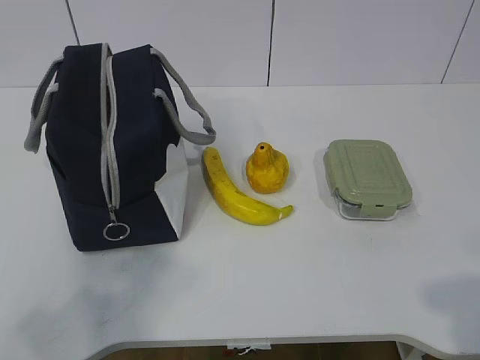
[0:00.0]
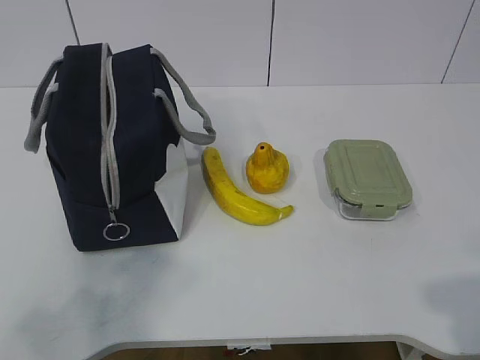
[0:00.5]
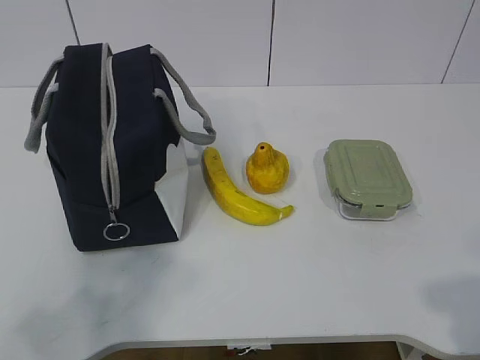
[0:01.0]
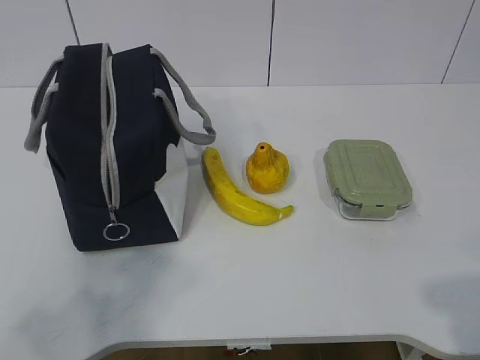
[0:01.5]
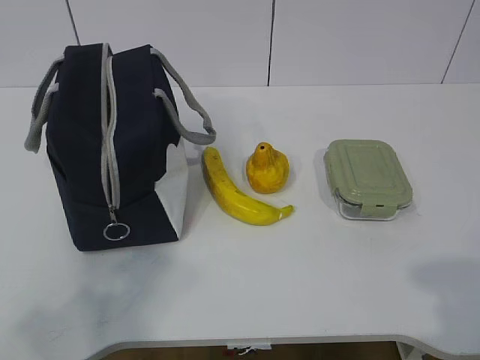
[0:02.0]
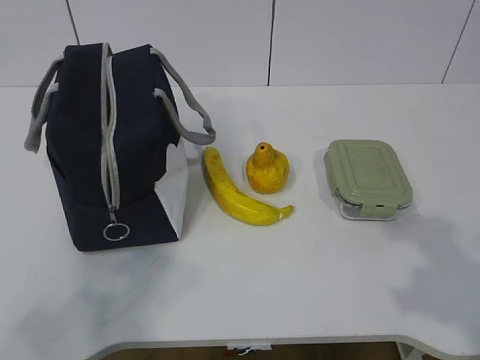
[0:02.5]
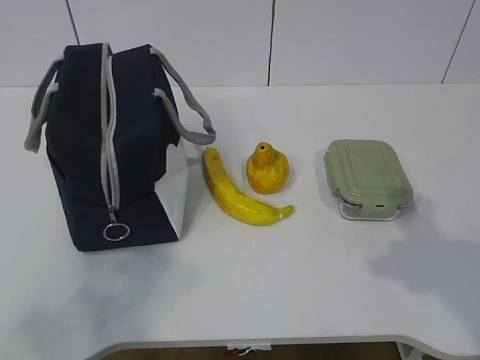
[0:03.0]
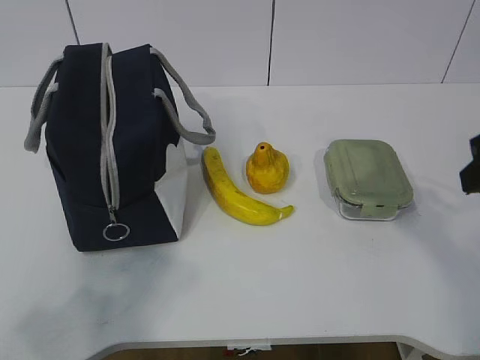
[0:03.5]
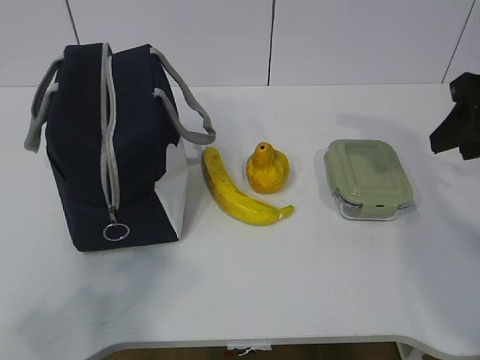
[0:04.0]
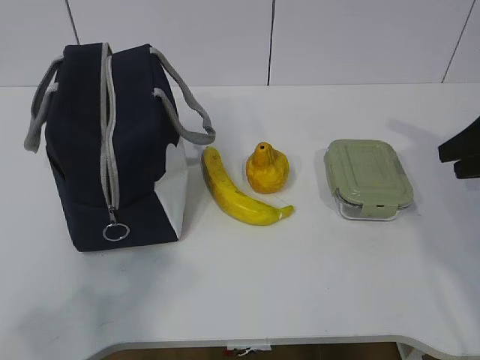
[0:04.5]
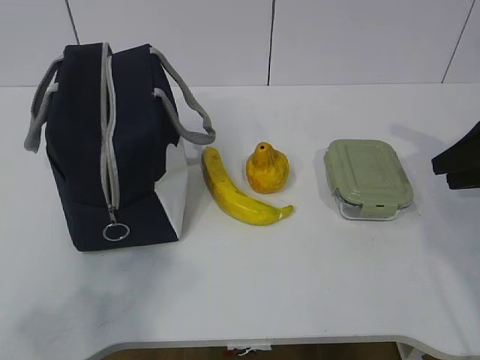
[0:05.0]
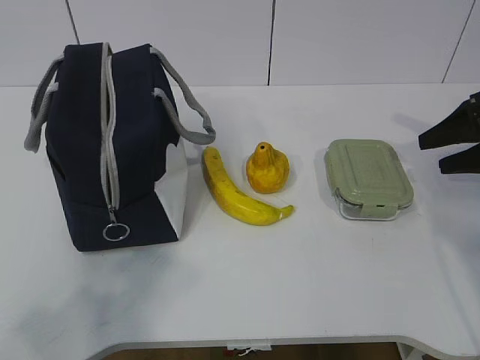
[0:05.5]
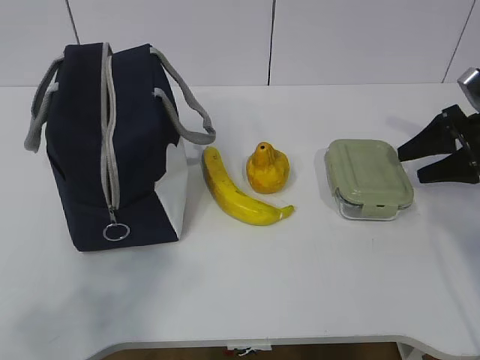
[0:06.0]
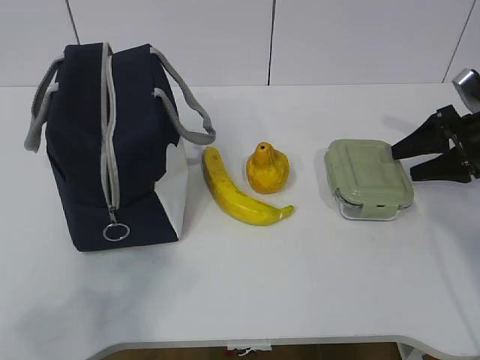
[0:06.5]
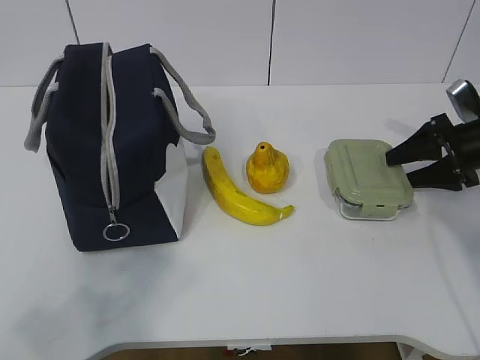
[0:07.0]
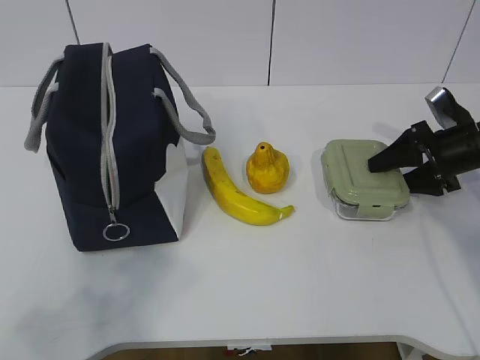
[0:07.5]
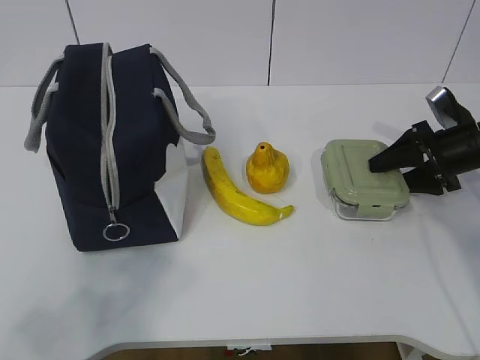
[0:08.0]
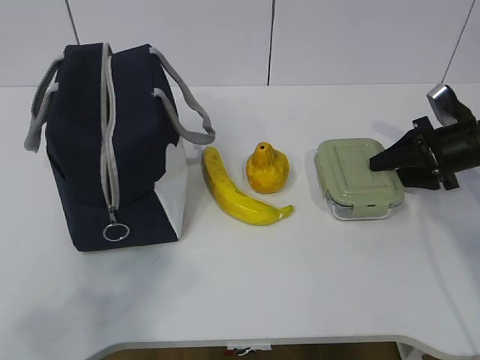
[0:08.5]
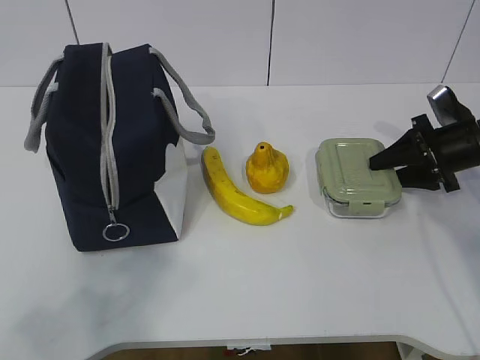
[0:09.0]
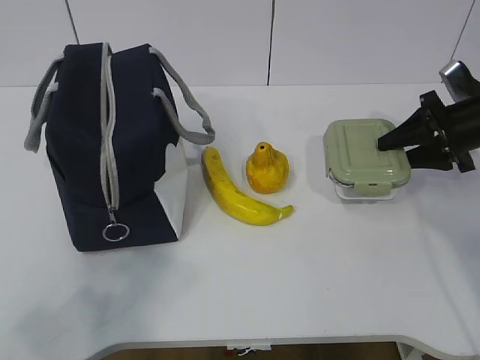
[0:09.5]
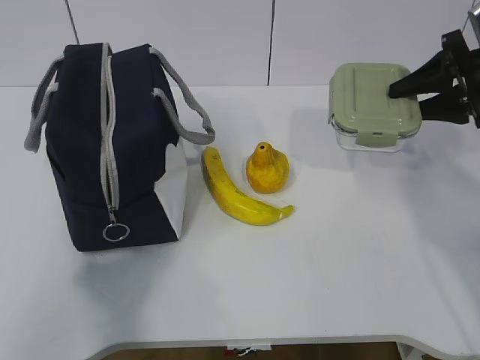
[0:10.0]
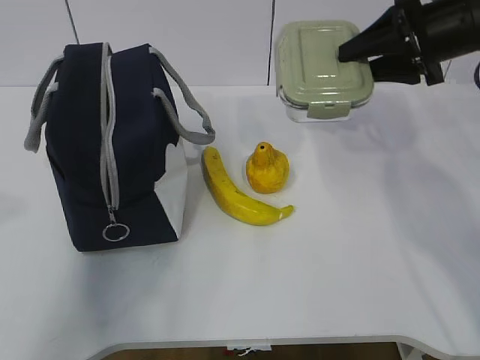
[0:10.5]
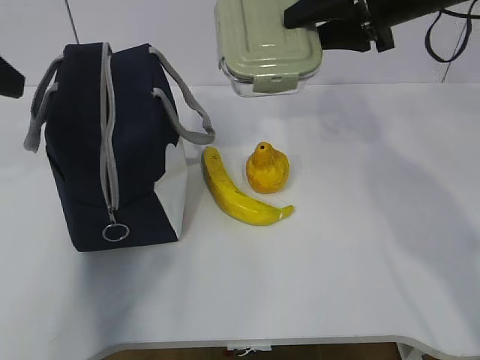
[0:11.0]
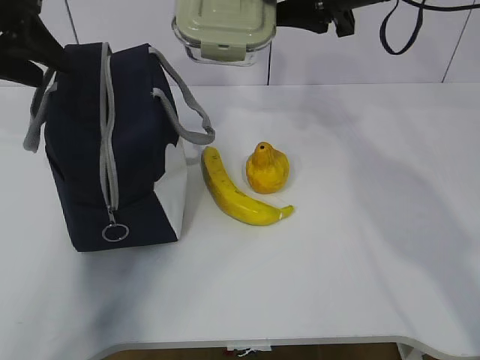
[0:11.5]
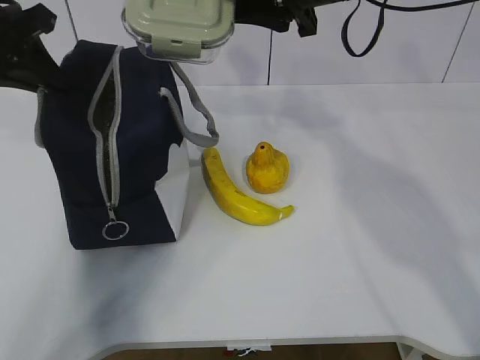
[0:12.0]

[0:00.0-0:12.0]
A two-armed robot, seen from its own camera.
Step, 0:00.0 to 0:06.5: Grab the lunch box with your right hand.
Step, 0:07.0 to 0:10.0: Grab the lunch bag with your left hand.
0:02.0 to 0:04.0: The right gripper goes roughly 30 cm forward.
0:04.0 to 0:06.0: The right gripper goes roughly 20 cm downward, forward and to the right, and opens its fingers.
0:06.0 to 0:08.0: The grippers stay close to where they were, moving slightly.
0:08.0 to 0:10.0: The right gripper shifts some 10 cm upward.
0:10.0 to 0:12.0: The right gripper shifts about 25 cm to the left and upward. The left gripper shifts some 35 cm forward, and closes its fingers.

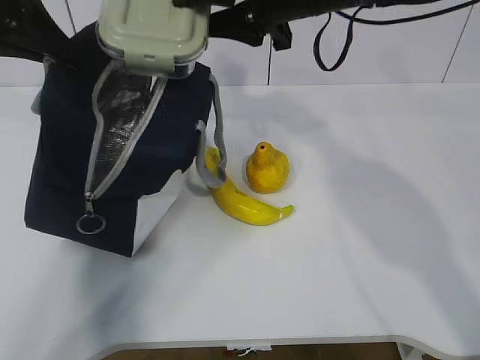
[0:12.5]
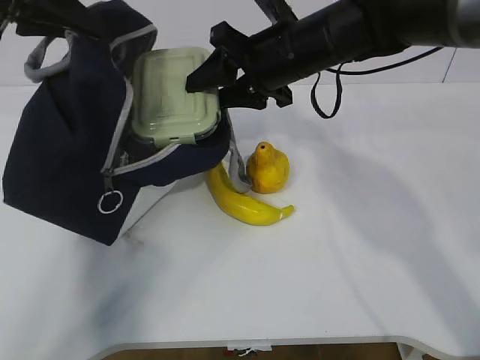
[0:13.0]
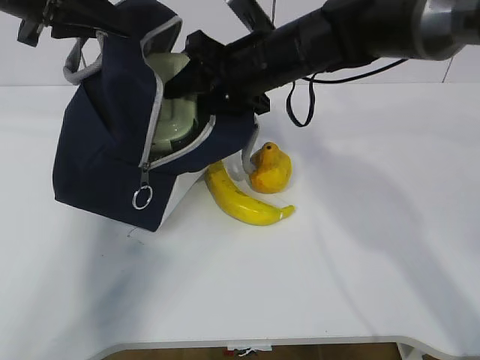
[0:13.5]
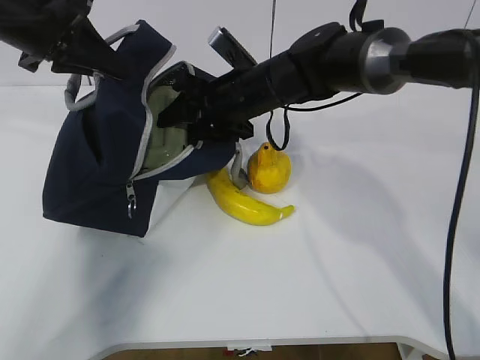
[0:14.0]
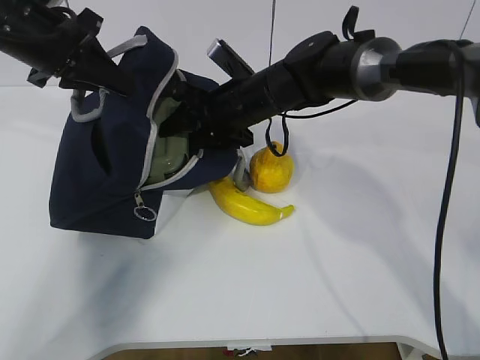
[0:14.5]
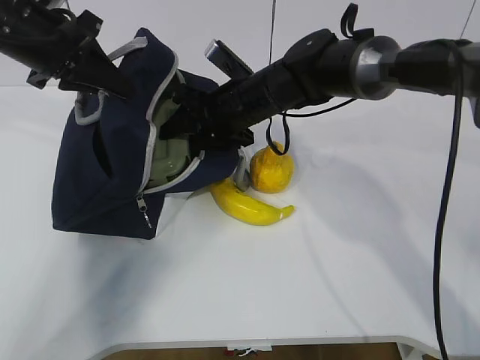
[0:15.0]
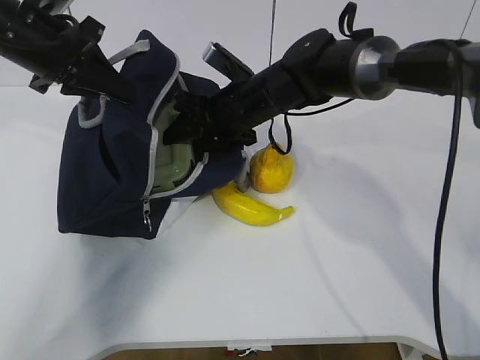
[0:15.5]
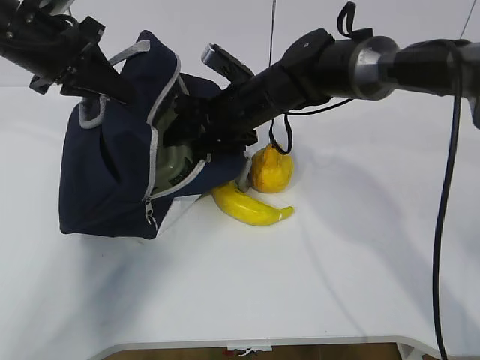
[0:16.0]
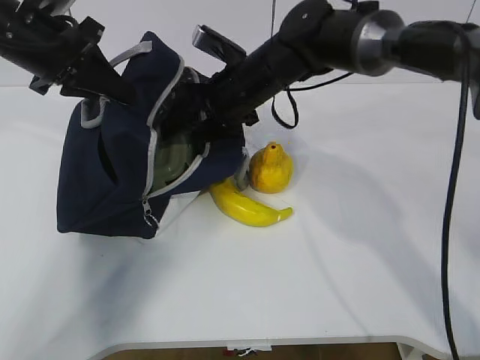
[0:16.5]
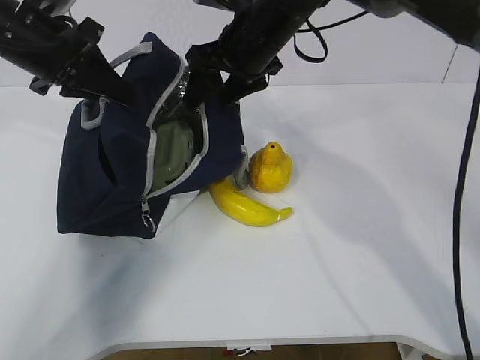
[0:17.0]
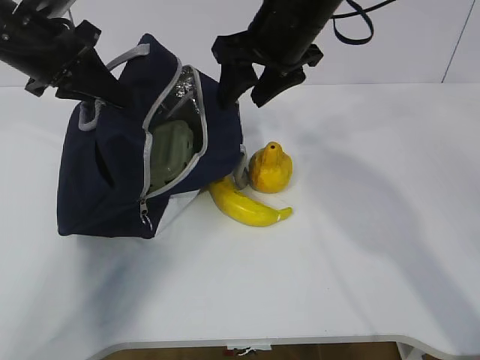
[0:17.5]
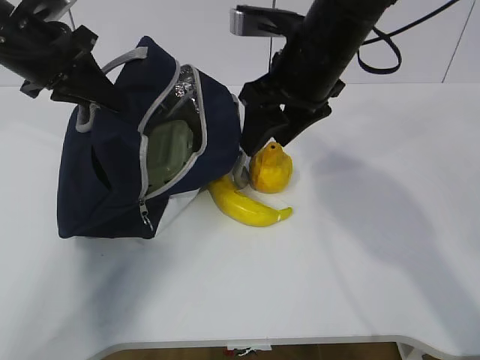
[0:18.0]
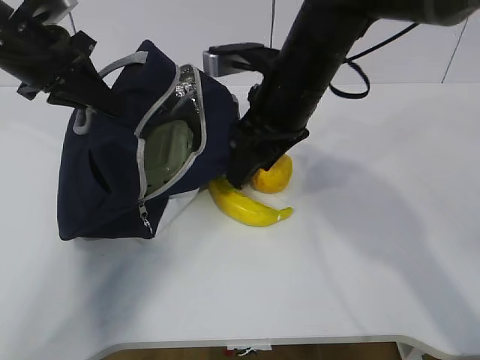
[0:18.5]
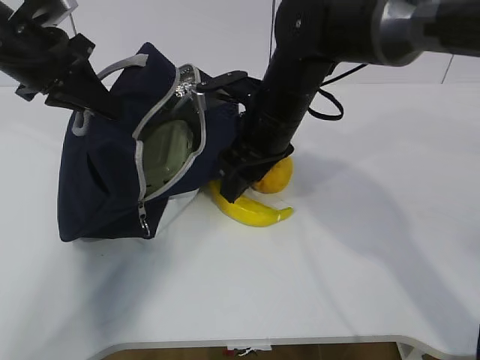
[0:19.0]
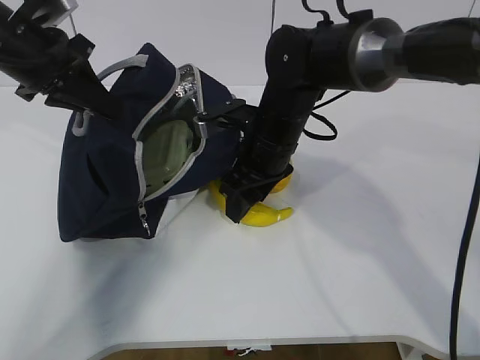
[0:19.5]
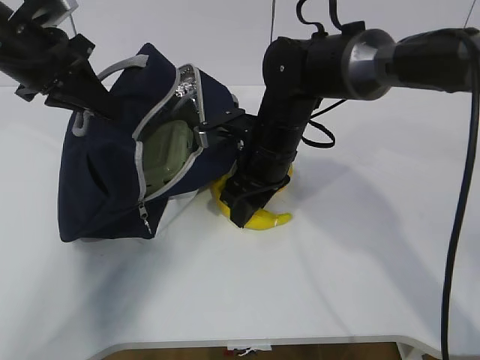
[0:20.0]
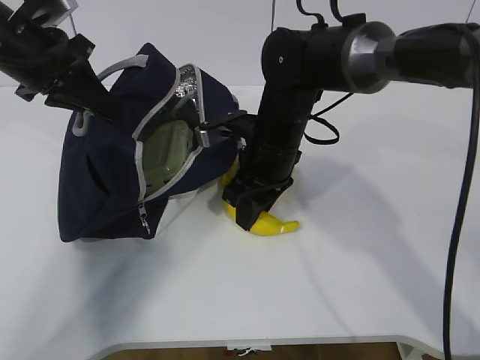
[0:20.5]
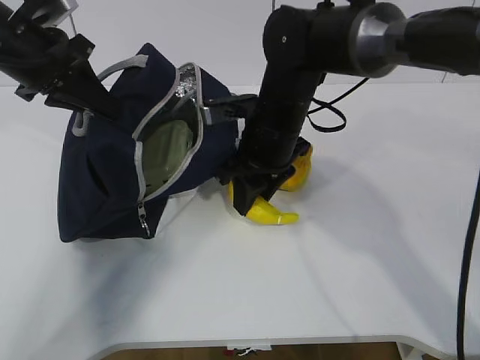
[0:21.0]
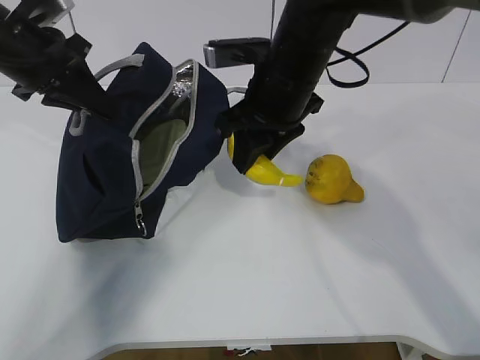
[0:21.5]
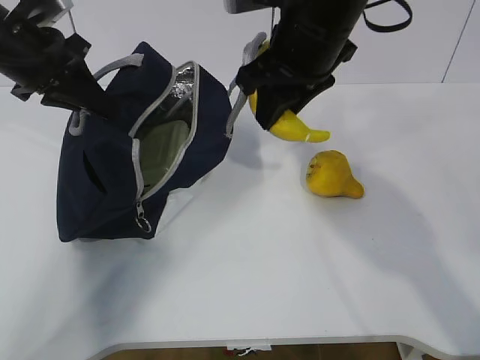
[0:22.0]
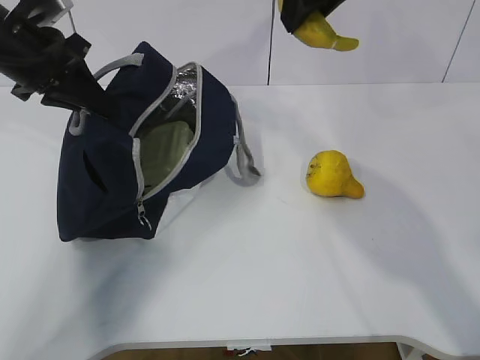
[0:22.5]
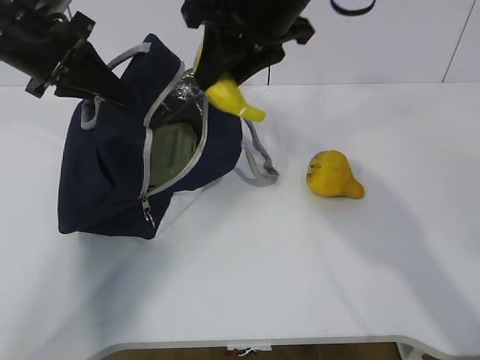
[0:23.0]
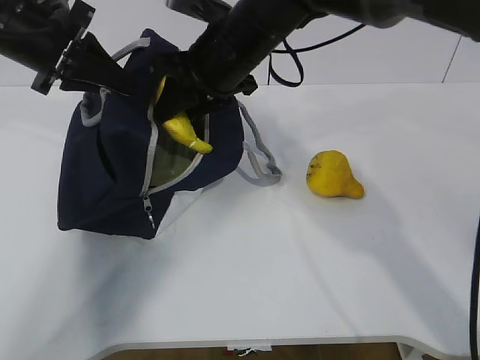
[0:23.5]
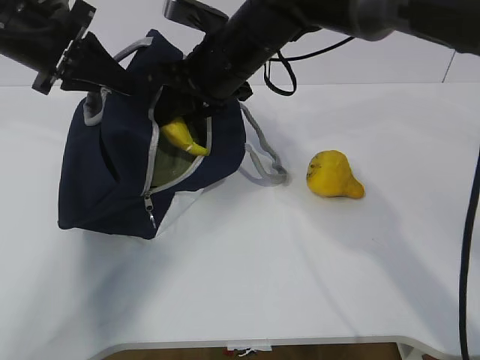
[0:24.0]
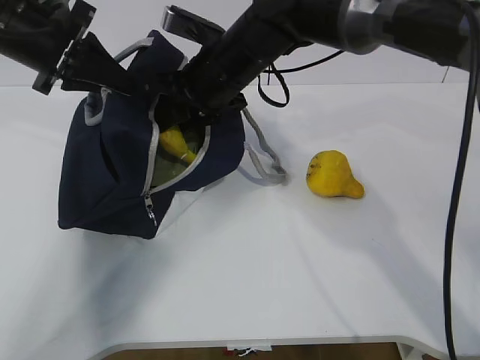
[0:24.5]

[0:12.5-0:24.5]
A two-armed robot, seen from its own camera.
Step, 0:14.0 to 0:16.5: Grab the banana with your right hand.
Step, 0:17.0 to 0:20.5: Place it into the bag with your right hand.
0:12.5 to 0:14.5: The right gripper heads downward, covering about 15 cm, while the left gripper is displaced downward by approximately 5 cm.
0:14.5 to 0:16.5: The grippers move only a little.
0:16.5 to 0:18.5: The right gripper moves backward, roughly 10 cm.
0:18.5 to 0:20.5: The right gripper moves downward, about 10 cm, and closes its fingers.
0:20.5 to 0:22.5: The right gripper is displaced upward by about 25 cm.
0:22.5 to 0:24.5: The right gripper moves downward, to the left and forward, about 20 cm.

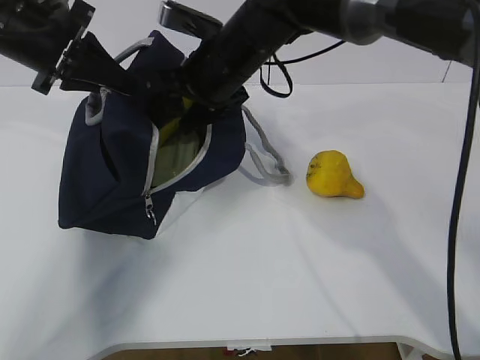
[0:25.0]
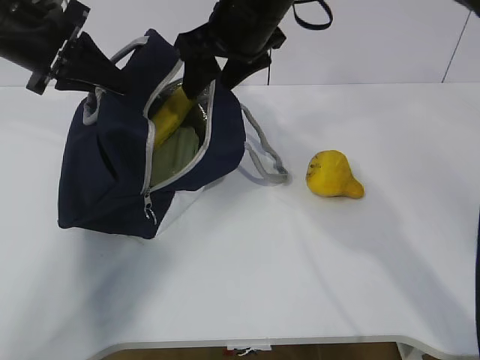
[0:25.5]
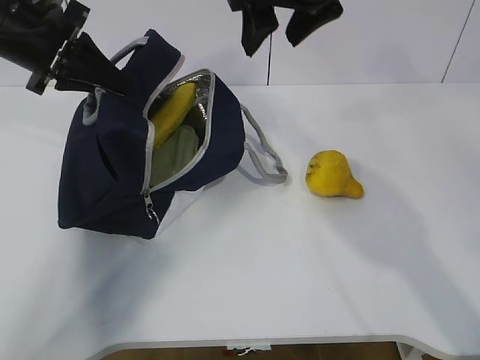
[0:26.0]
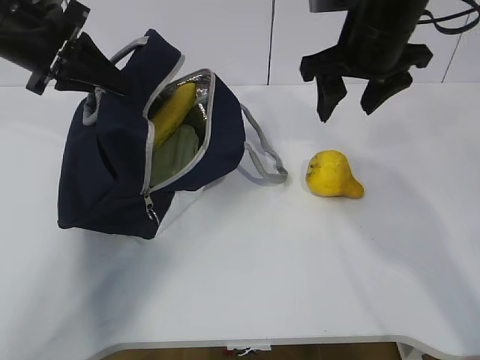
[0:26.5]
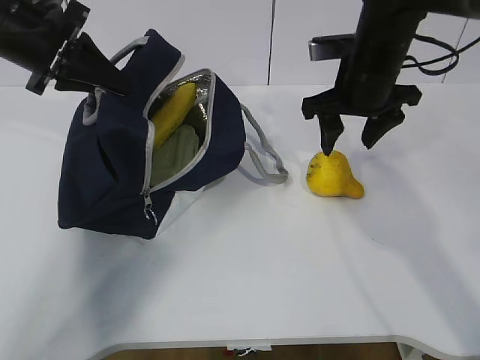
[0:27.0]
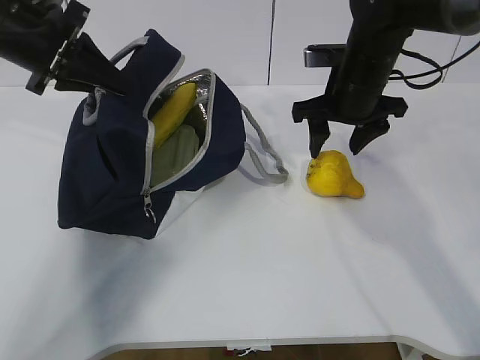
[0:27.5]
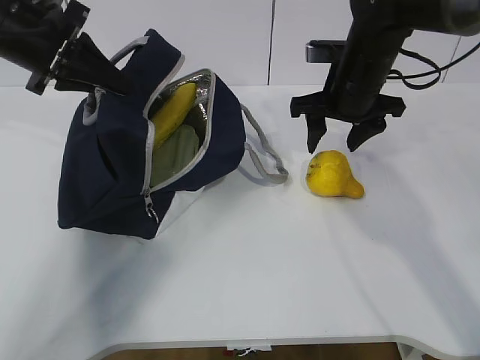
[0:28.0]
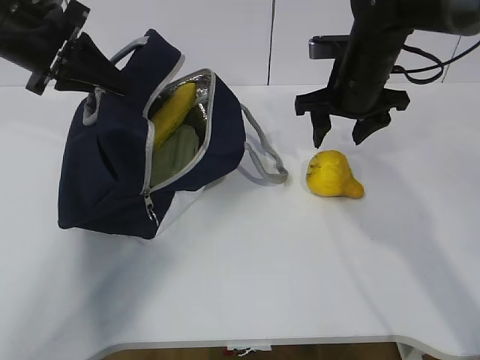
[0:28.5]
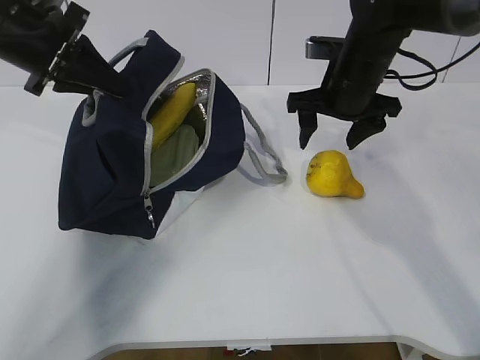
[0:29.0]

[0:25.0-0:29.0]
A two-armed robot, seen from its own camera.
Step, 0:27.0 to 0:28.0: Grab the lunch bag with your right hand.
0:25.0 to 0:27.0: The right gripper heads to the right, covering approximately 15 cm.
0:27.0 to 0:29.0: The grippers stay close to where they were, moving slightly.
